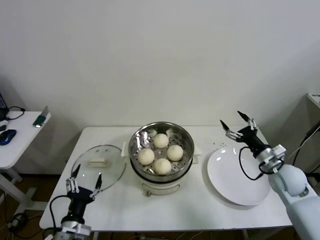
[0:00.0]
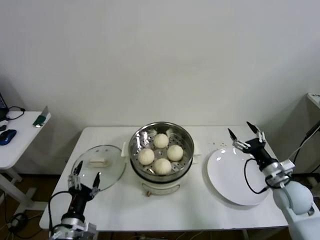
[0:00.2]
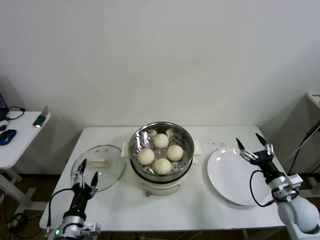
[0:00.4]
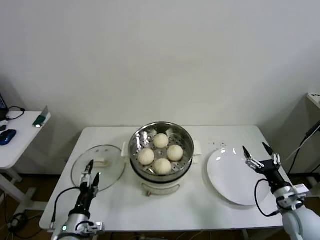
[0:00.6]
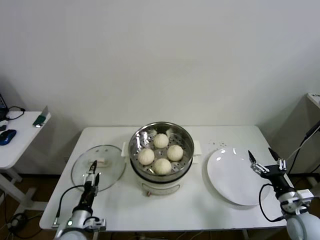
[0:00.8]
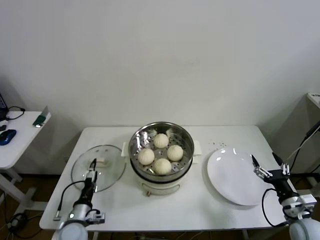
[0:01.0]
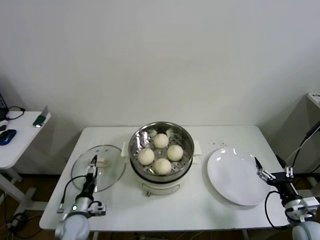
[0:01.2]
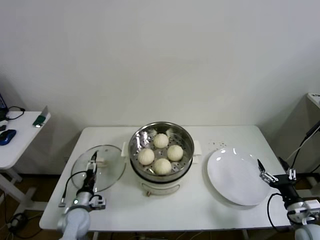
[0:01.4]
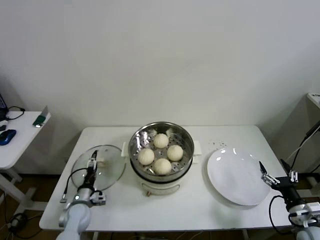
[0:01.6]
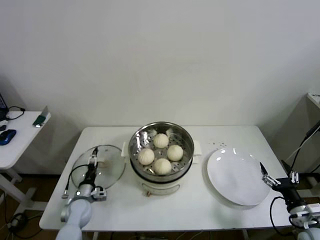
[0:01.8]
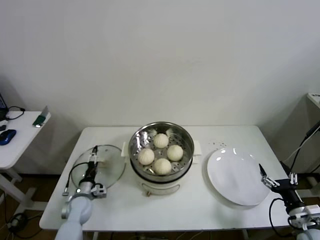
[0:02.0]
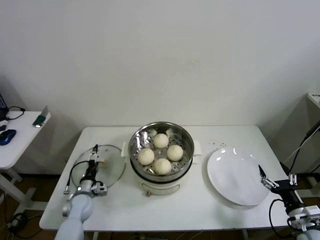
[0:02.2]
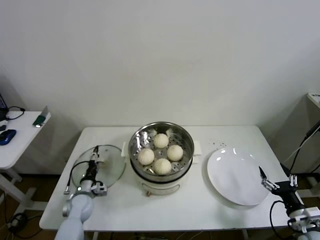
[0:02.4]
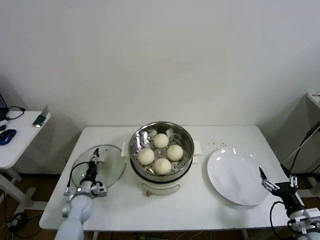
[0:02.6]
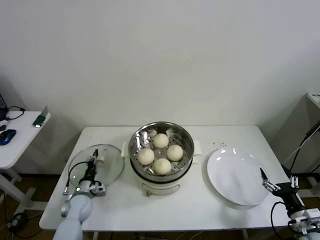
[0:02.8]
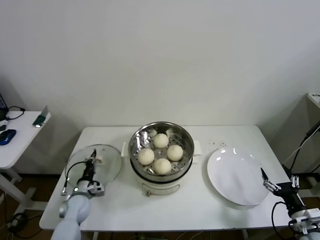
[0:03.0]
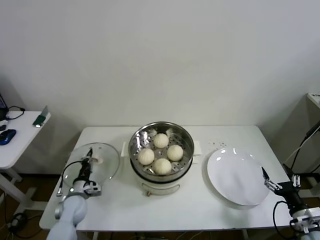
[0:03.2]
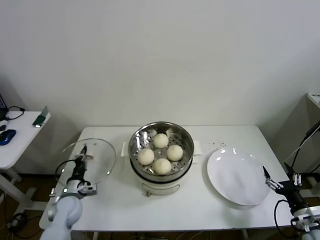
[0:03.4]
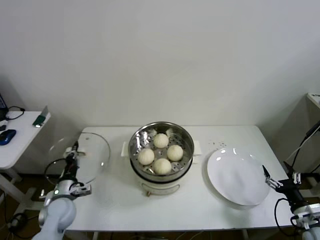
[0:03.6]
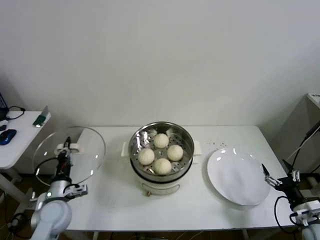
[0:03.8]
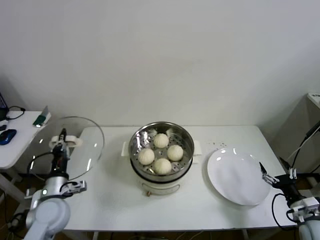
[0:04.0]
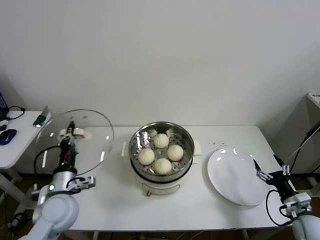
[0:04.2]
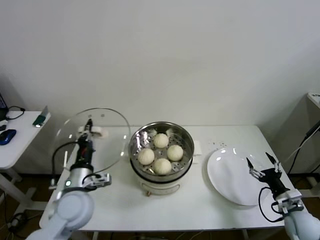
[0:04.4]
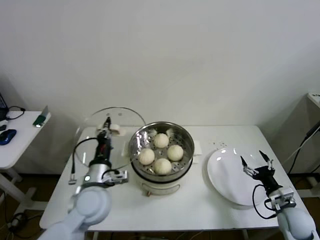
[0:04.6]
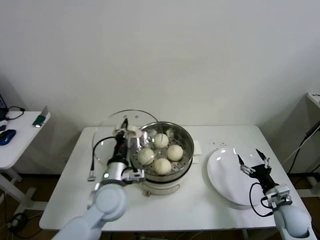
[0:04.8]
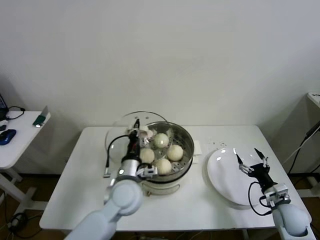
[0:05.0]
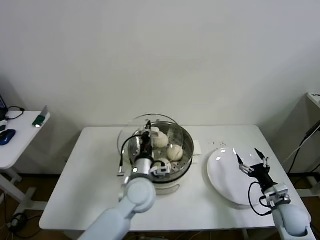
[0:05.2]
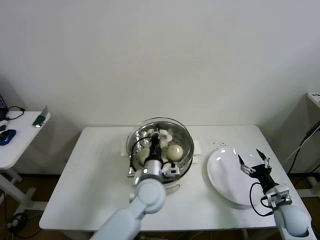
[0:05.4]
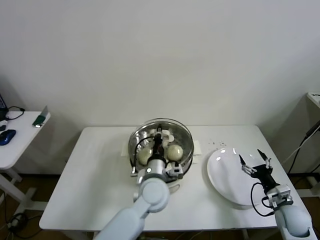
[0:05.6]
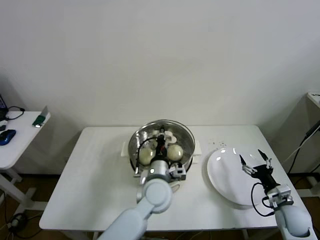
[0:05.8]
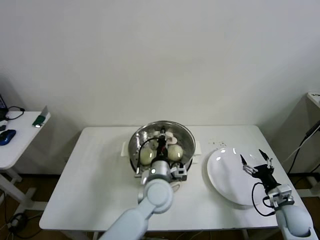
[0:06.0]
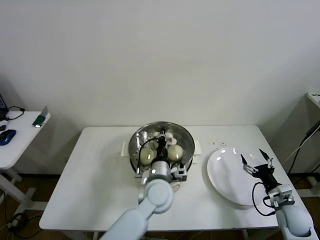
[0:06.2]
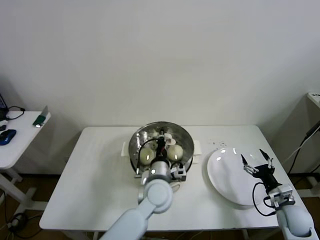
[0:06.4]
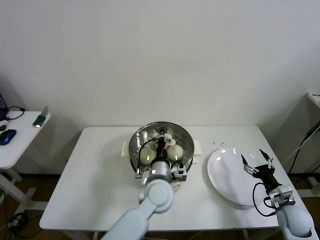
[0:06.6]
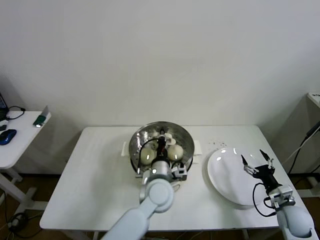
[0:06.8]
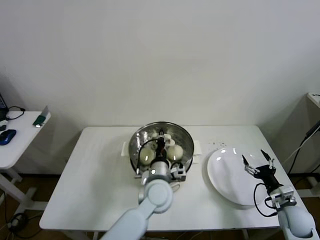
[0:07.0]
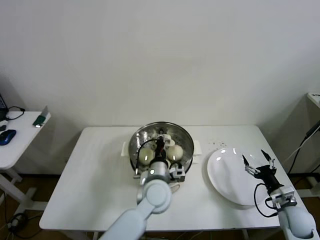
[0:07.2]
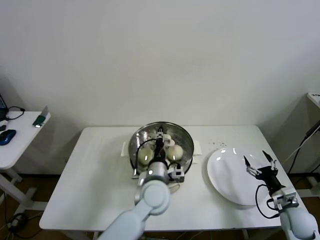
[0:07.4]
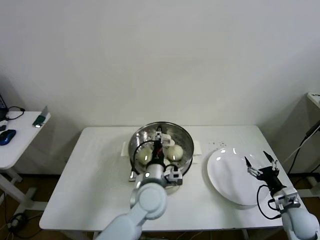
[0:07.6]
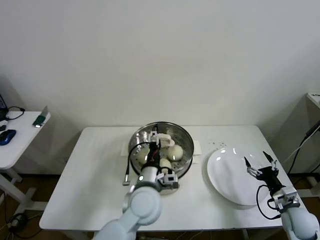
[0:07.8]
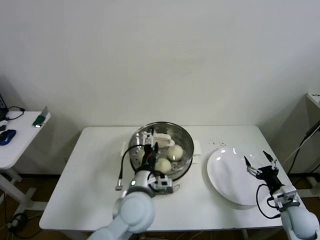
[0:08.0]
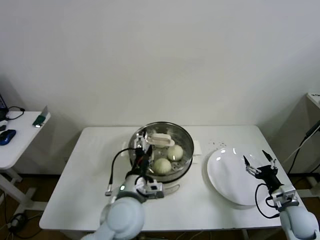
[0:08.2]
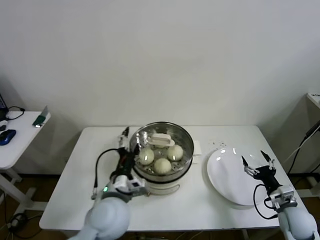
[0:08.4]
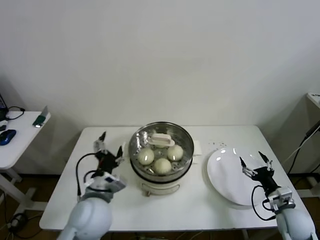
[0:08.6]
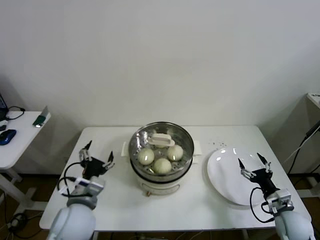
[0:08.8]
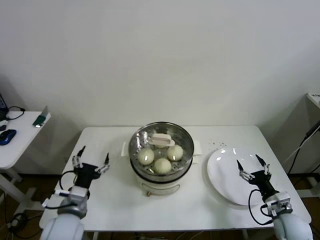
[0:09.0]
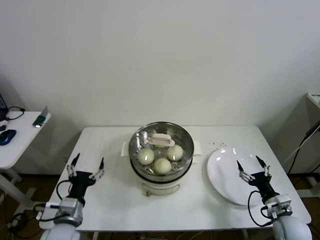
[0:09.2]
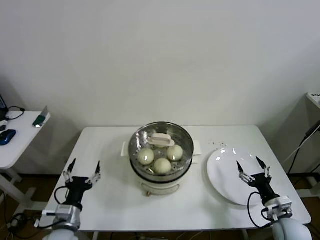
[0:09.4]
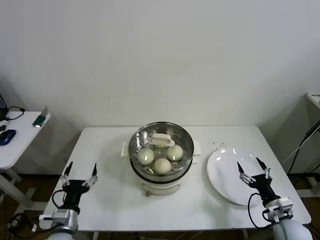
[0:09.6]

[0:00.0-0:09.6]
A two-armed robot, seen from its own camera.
Step, 0:00.0 to 0:03.0: Grasp the pot lid with left gripper.
Step, 0:03.2 to 0:08.0: Place the pot lid on the steamer with left gripper.
0:00.0 to 0:01.6: The right gripper shifts some 20 cm backward and downward; the left gripper heads forward and downward, covering about 20 cm.
0:01.6 to 0:03.2: The left gripper closes.
0:03.2 to 0:04.8: The right gripper is displaced forward by about 10 cm. Meanwhile the left gripper heads upward and to the right, covering roughly 25 cm.
0:04.8 to 0:06.4: The left gripper is displaced to the right by roughly 15 cm.
0:06.4 to 0:08.0: The left gripper changes place by some 10 cm, and opens its fingers.
0:08.0 to 0:09.6: The right gripper ends up about 5 cm from where it was. Meanwhile the left gripper goes approximately 25 cm to the left and downward.

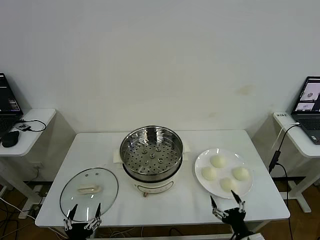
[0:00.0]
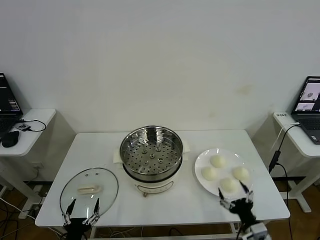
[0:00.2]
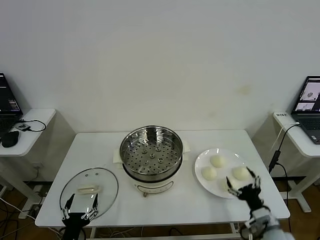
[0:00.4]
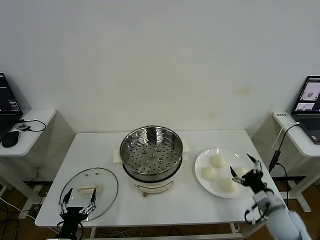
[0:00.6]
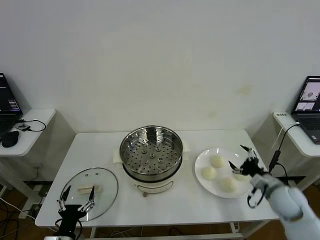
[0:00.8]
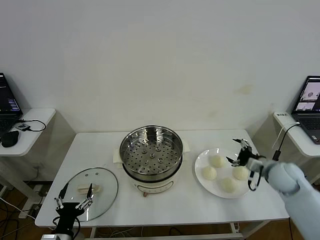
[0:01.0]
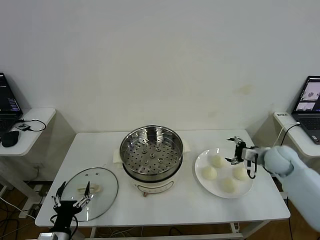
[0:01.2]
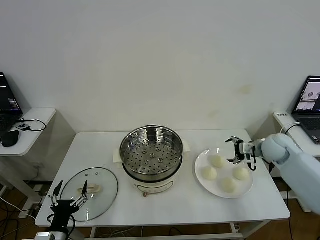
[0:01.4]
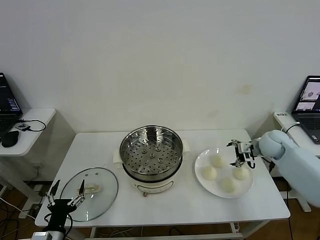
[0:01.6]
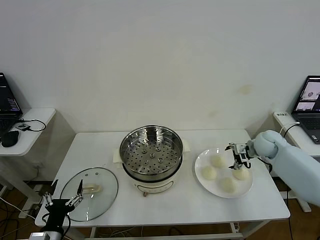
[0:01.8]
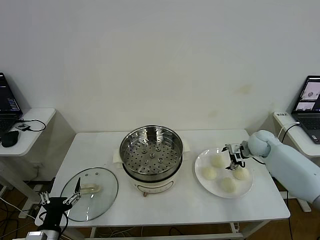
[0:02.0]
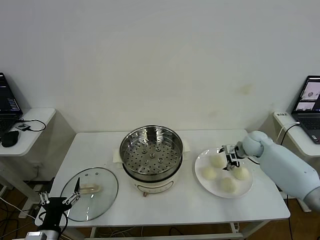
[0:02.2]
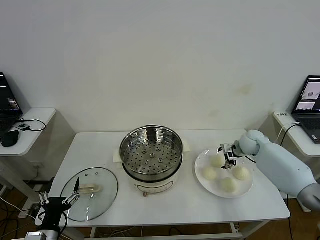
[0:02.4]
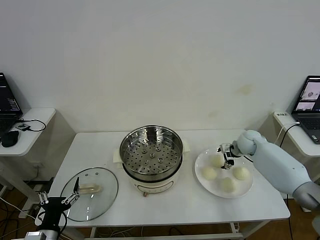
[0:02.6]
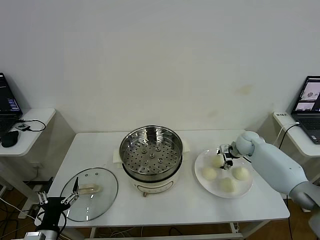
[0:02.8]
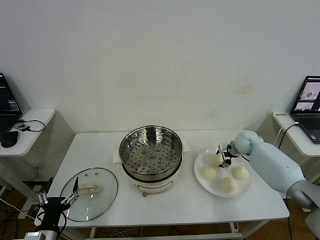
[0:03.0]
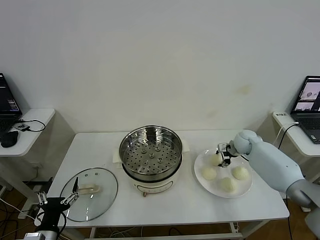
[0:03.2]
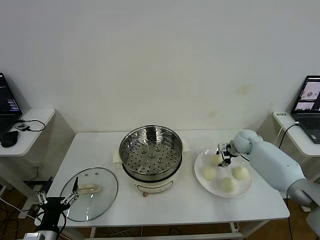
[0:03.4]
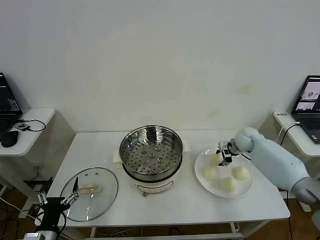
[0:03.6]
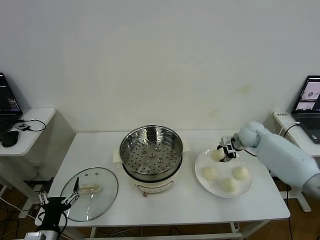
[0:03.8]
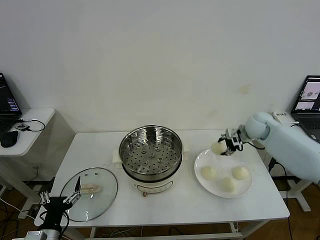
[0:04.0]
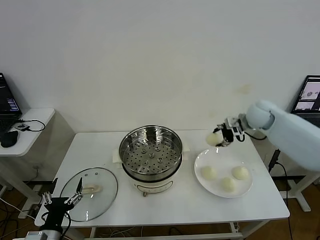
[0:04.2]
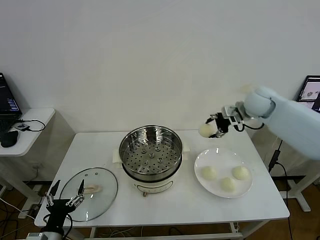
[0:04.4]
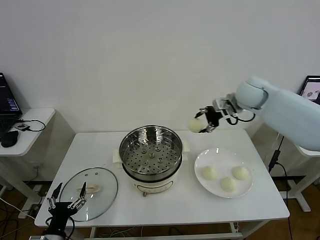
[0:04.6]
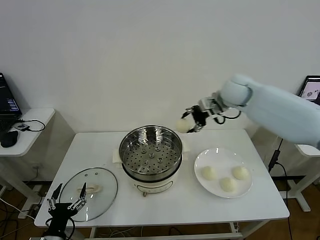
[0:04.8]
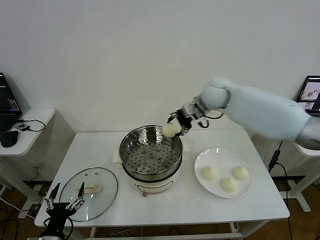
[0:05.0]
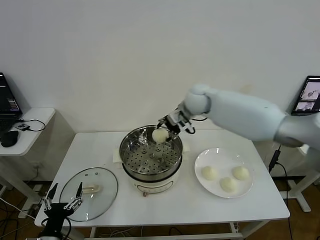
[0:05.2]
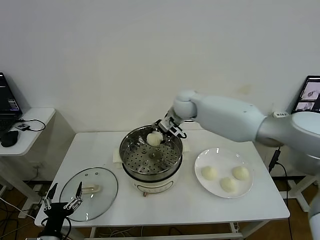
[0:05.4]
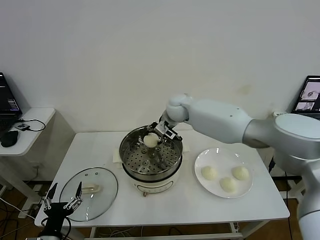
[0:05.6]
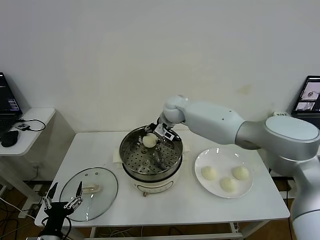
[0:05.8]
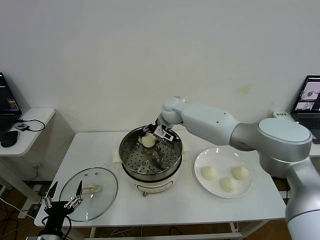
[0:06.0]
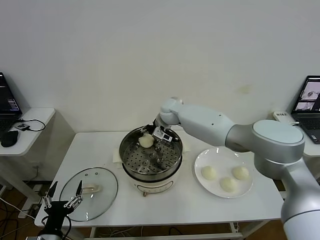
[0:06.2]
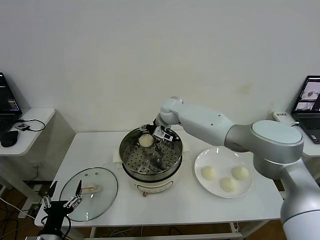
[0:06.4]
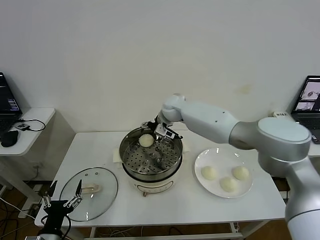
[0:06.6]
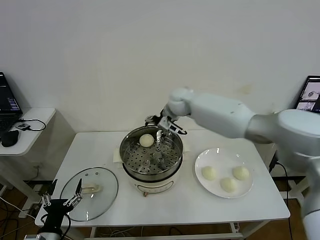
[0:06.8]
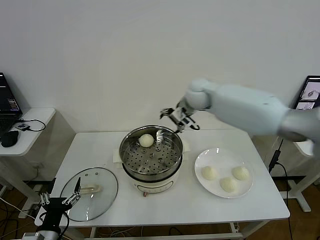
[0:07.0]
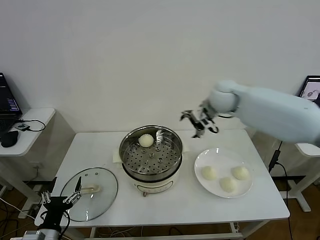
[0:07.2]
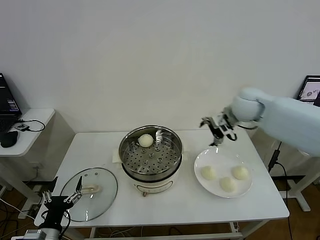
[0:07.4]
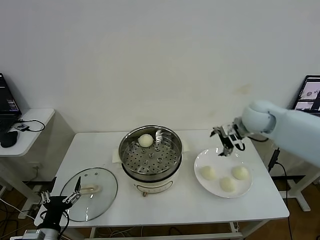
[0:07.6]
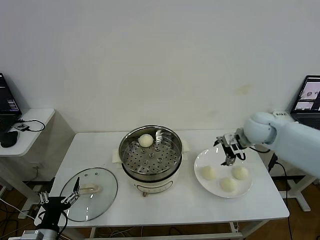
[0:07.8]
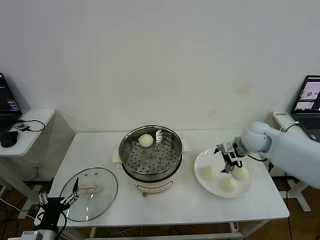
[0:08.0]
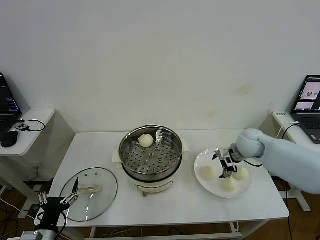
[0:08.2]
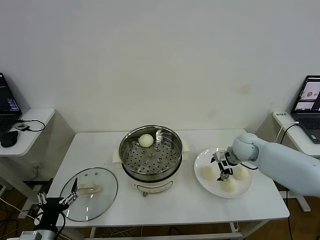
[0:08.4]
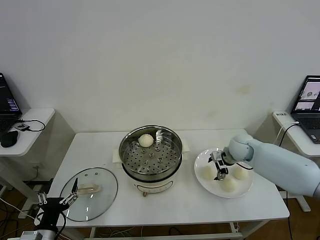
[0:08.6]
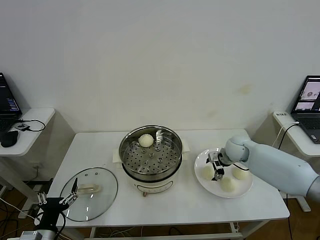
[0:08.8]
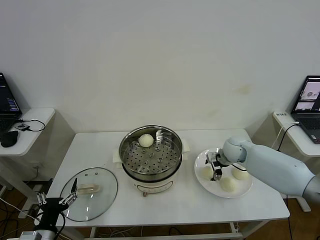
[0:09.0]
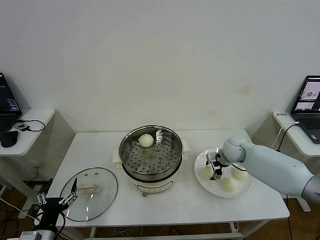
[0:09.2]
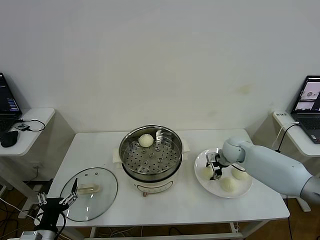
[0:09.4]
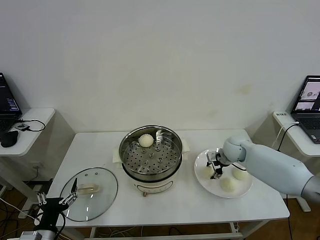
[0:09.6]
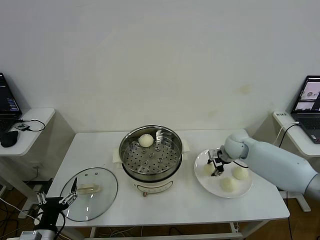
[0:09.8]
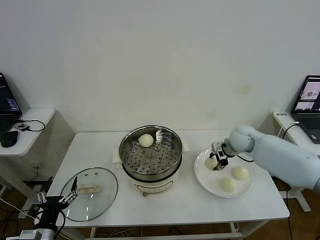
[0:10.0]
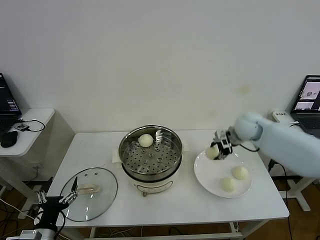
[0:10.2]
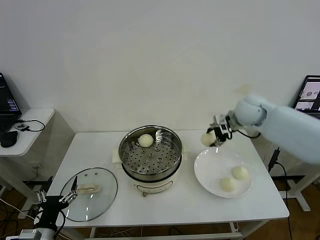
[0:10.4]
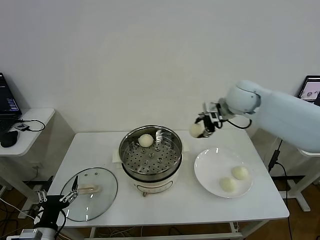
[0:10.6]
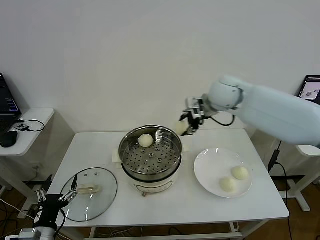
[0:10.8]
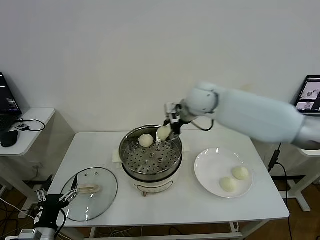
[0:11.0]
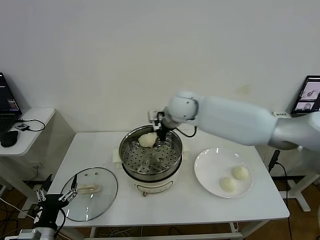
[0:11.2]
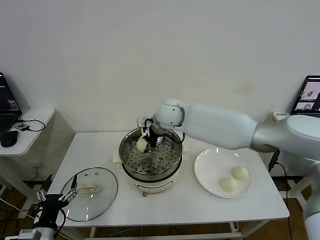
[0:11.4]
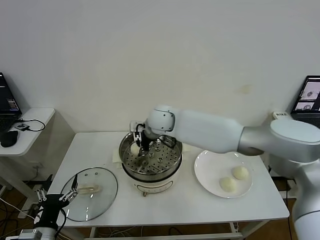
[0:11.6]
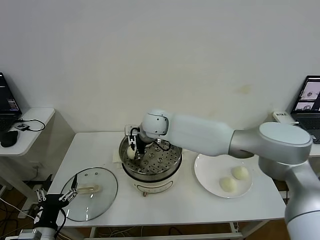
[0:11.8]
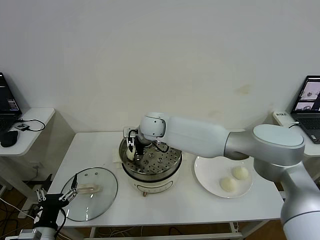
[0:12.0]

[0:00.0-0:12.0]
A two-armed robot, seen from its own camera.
Step, 0:00.0 to 0:02.8: Grasp the baozi in the plate with right gripper.
Step, 0:03.0 to 0:06.2: Place the baozi on the steamer with right gripper.
Step, 0:06.4 to 0:09.2: Grasp the baozi in the plate with right gripper.
0:01.6 to 0:03.0: The right gripper is displaced downward and forward by roughly 10 cm, and closes its fingers.
0:03.0 to 0:04.4: The right gripper heads upward, covering some 25 cm.
0:04.4 to 0:06.0: The right gripper is displaced to the left by roughly 25 cm.
0:06.0 to 0:07.6: The right gripper heads to the right and backward, covering approximately 30 cm, and opens its fingers.
0:07.6 to 0:09.0: The right gripper moves downward, roughly 15 cm.
0:09.0 to 0:10.4: The right gripper travels upward by roughly 20 cm, and closes its fingers.
0:10.4 to 0:12.0: The right gripper moves to the left, about 30 cm.
